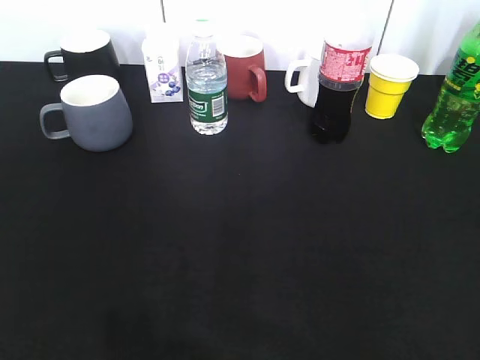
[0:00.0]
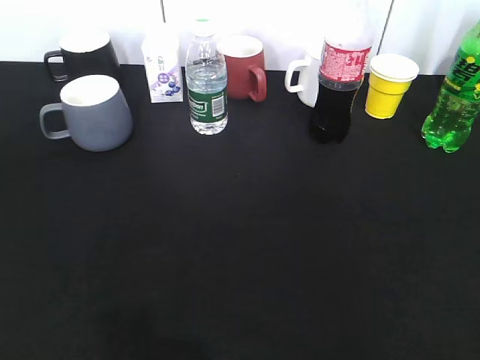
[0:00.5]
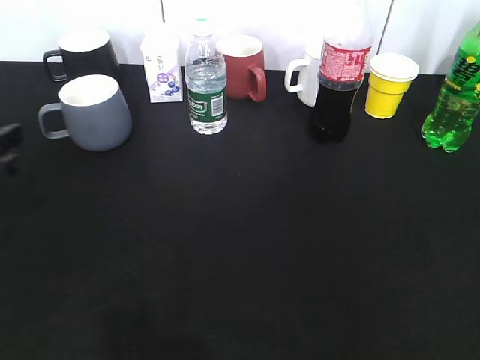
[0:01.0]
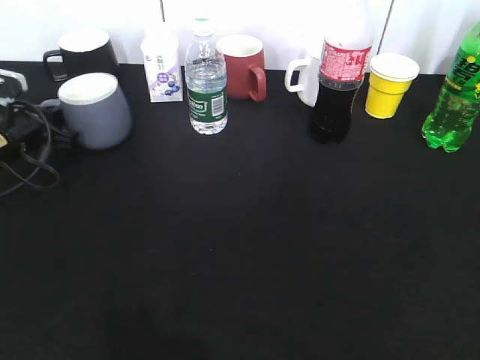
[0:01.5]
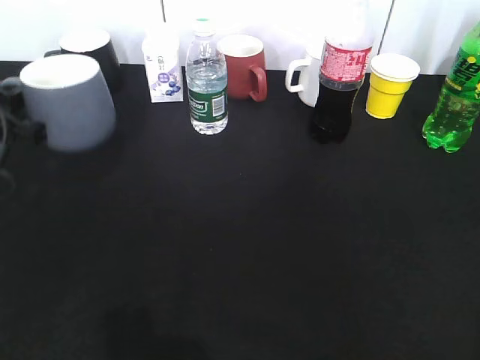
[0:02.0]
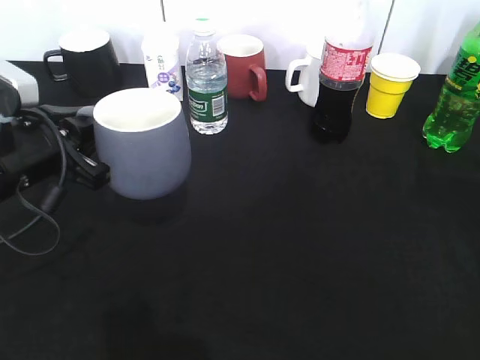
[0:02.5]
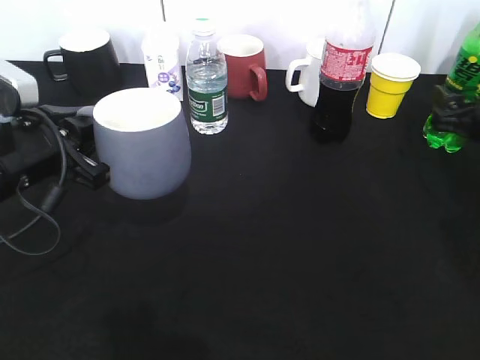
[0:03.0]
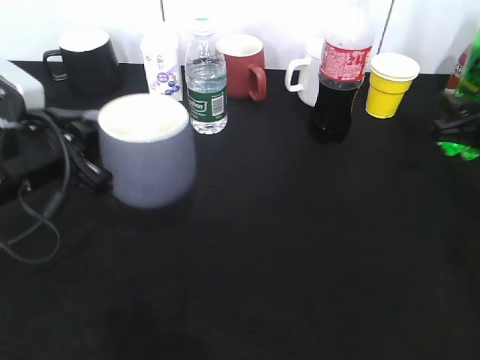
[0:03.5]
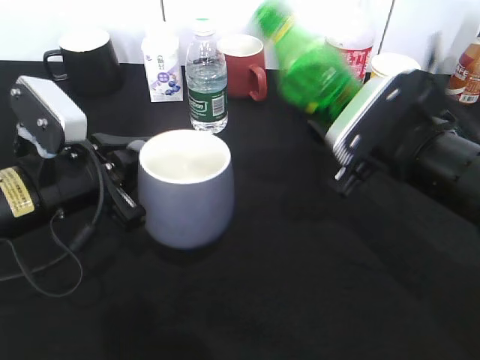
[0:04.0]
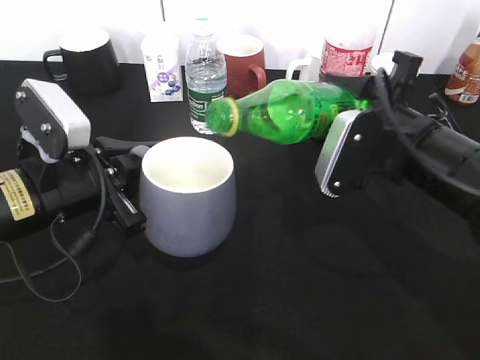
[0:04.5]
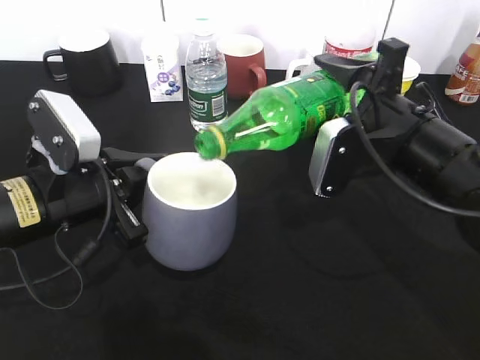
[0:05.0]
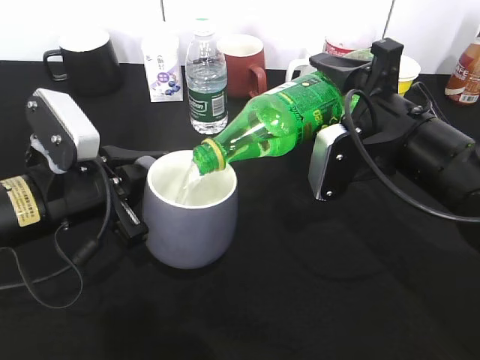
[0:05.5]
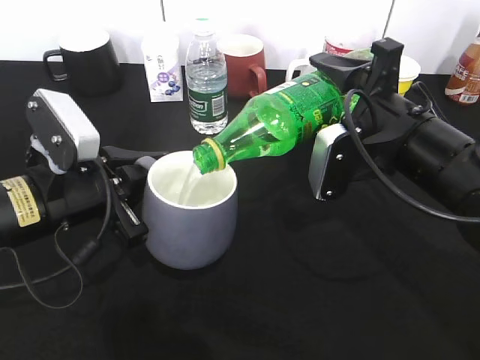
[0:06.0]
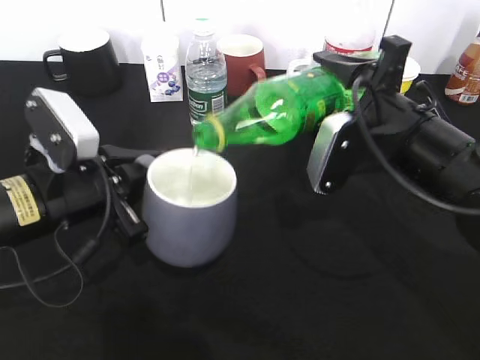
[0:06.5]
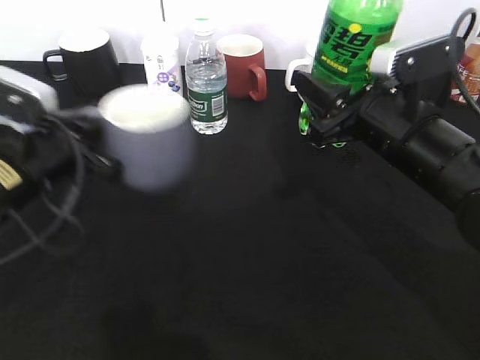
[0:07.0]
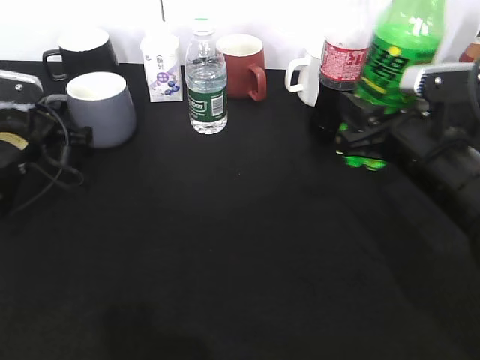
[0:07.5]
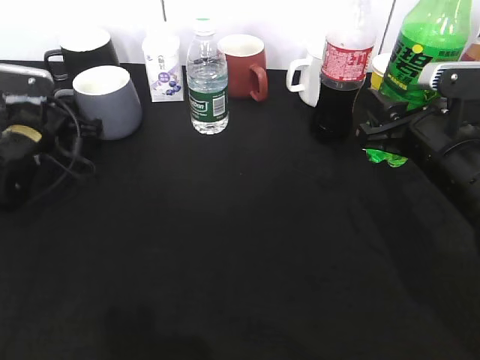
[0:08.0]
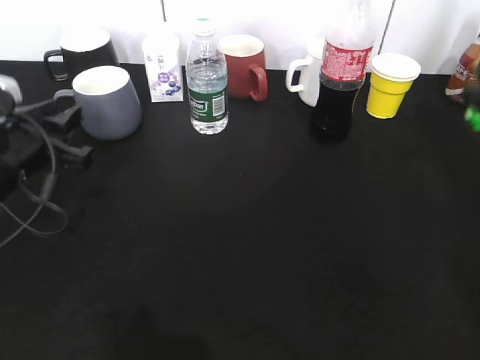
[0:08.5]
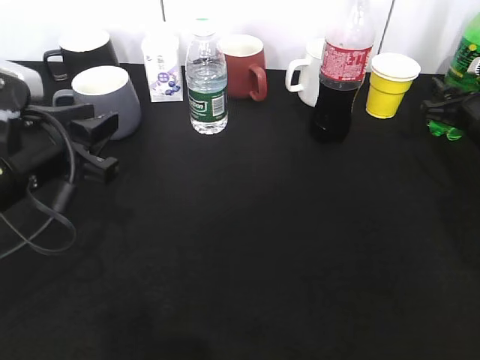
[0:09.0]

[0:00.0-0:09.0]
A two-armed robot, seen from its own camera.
Step, 0:00.0 to 0:01.5: Grasp the grey cup with left gripper.
Step, 0:03.5 to 0:06.5: Pour the sprite from bottle to cup with right gripper.
0:00.0 to 0:02.0: The left gripper heads forward, covering some 30 cm, and closes.
0:02.0 to 0:04.5: The right gripper heads forward, to the left and downward, covering approximately 30 cm, and closes. Meanwhile the left gripper goes roughly 10 cm to the right and backward.
0:07.0 to 0:09.0: The left gripper moves some 15 cm forward and comes back, and opens. The right gripper is displaced to the right, forward and downward by roughly 20 cm, and opens its fingers.

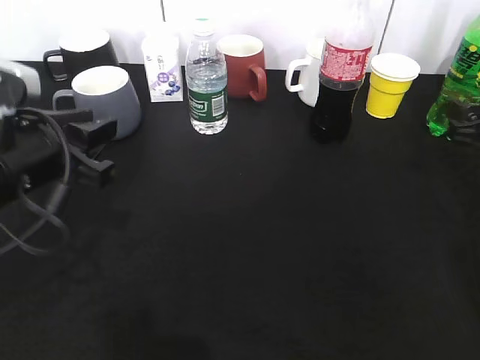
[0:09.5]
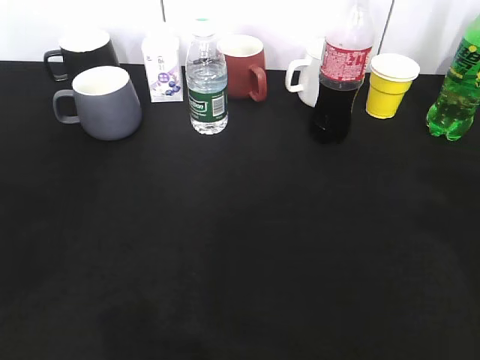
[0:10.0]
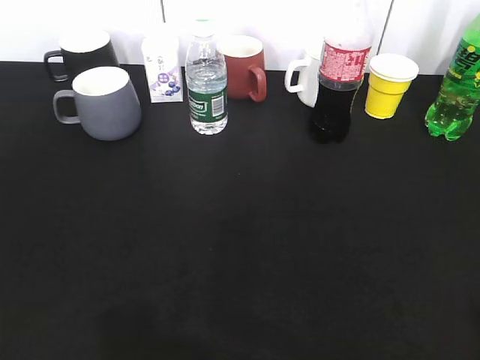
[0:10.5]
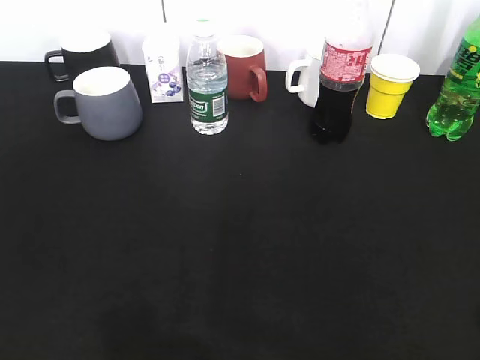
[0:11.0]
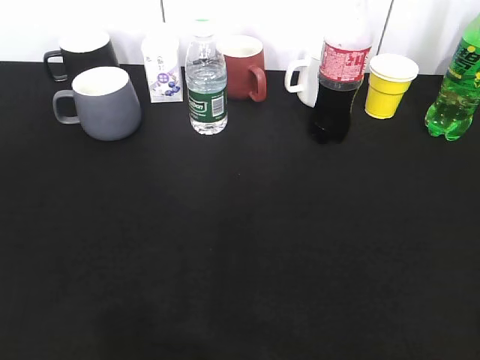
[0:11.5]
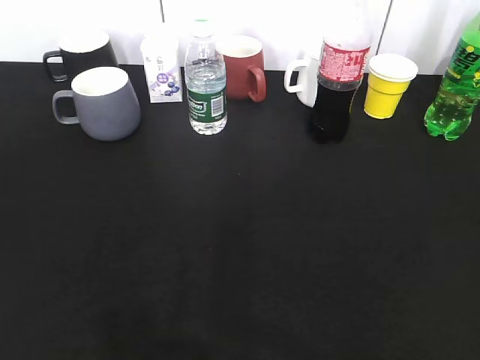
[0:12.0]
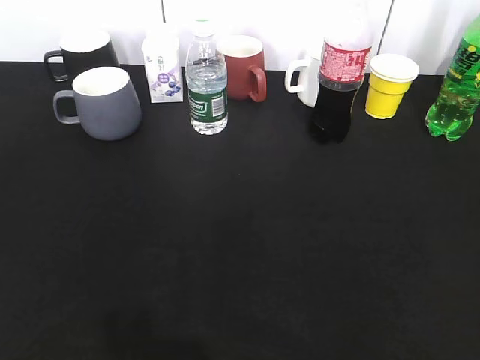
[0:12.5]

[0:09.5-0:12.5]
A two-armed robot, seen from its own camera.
0:09.5 to 0:11.0: The right gripper shifts approximately 30 cm backward and upward; the left gripper goes about 20 cm backward and to the left, and opens up.
